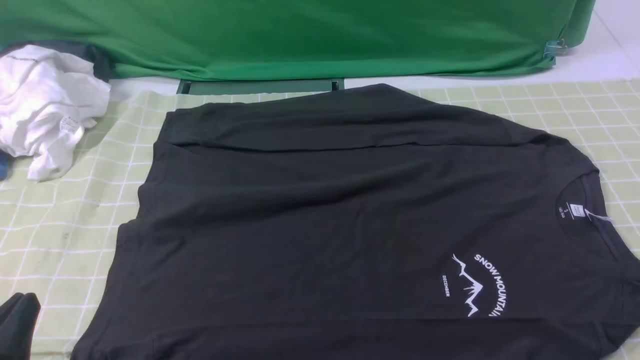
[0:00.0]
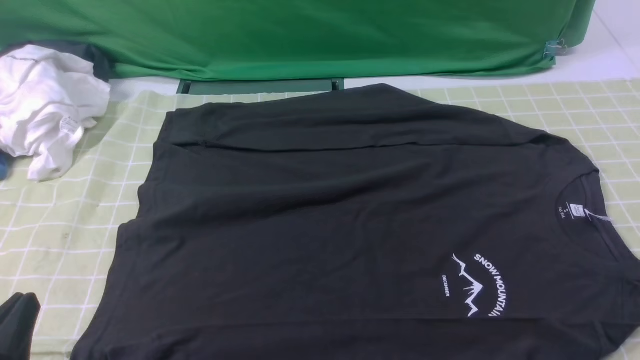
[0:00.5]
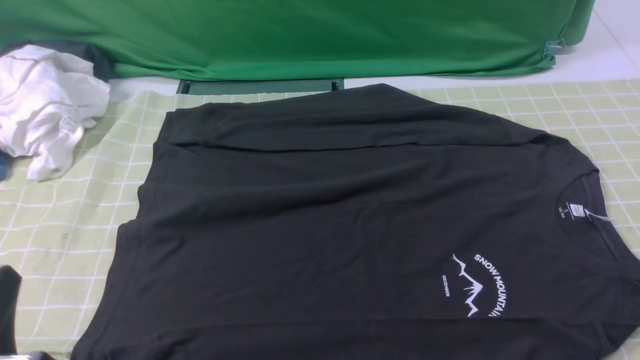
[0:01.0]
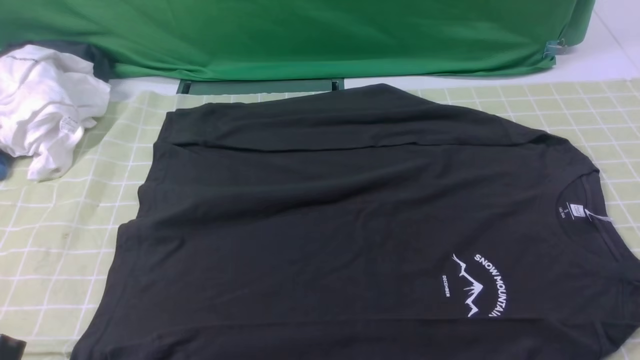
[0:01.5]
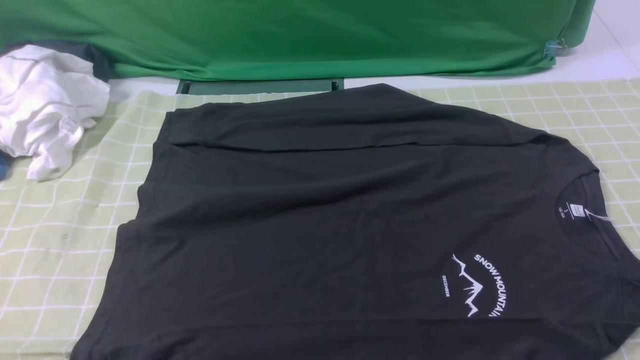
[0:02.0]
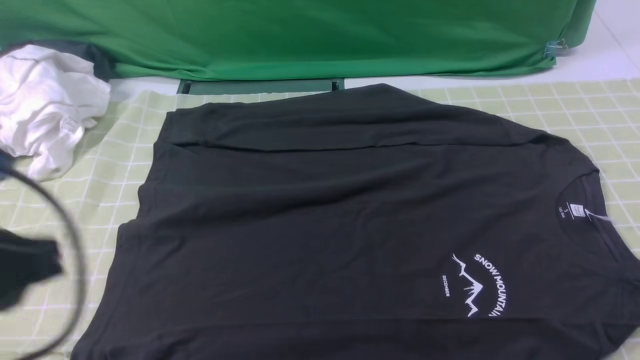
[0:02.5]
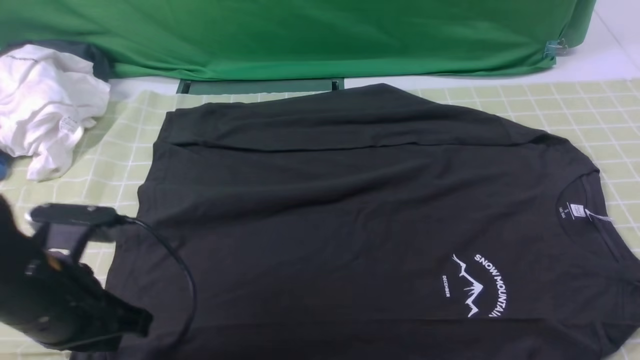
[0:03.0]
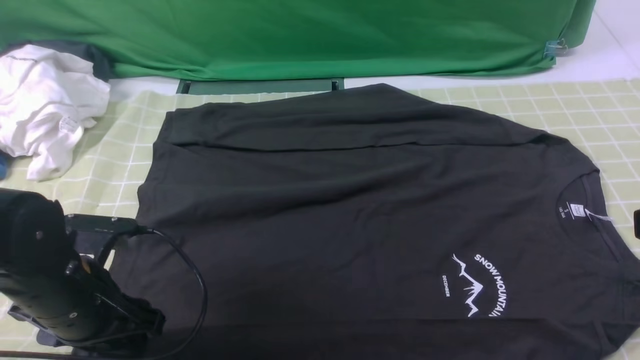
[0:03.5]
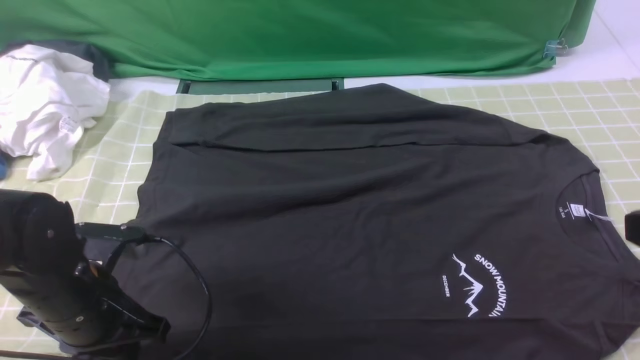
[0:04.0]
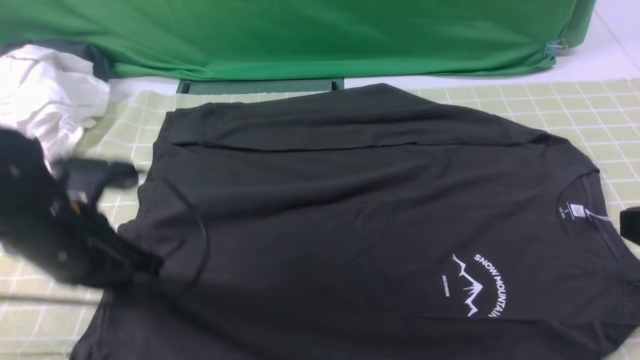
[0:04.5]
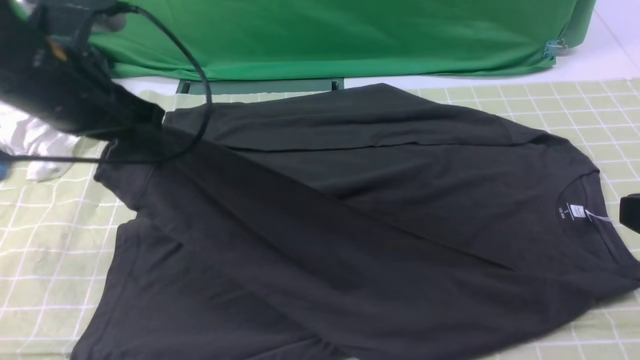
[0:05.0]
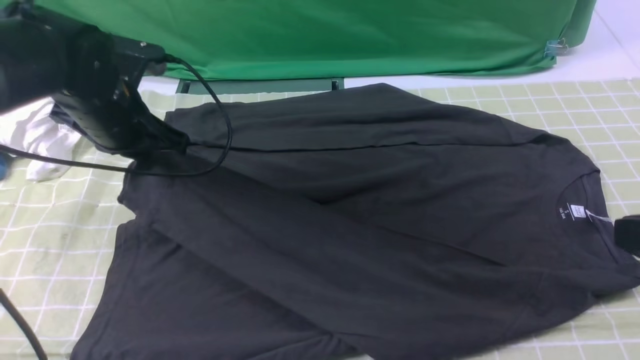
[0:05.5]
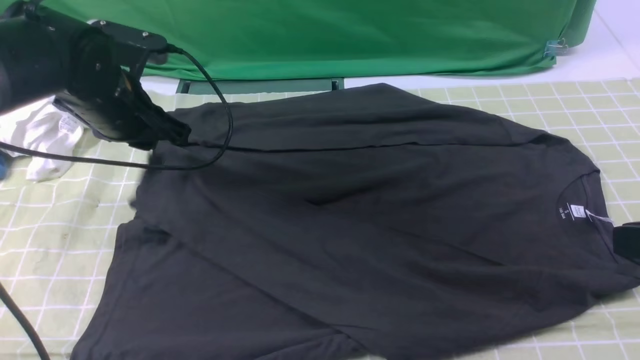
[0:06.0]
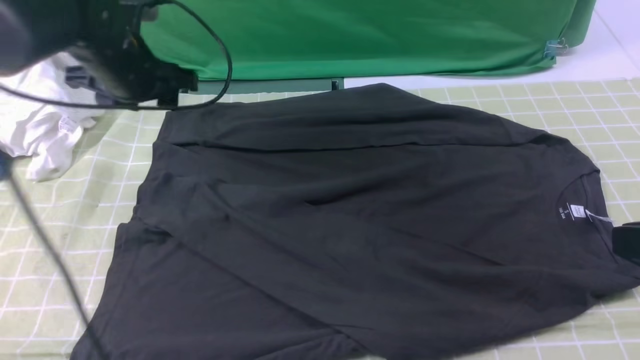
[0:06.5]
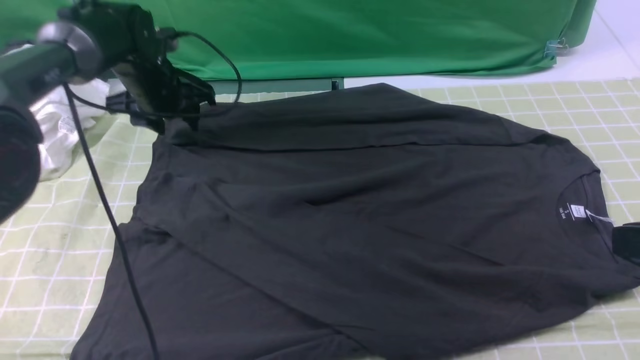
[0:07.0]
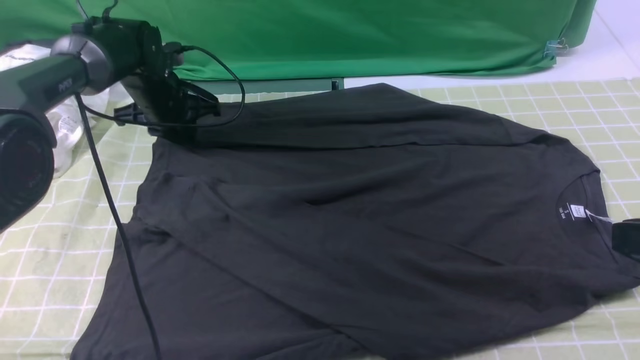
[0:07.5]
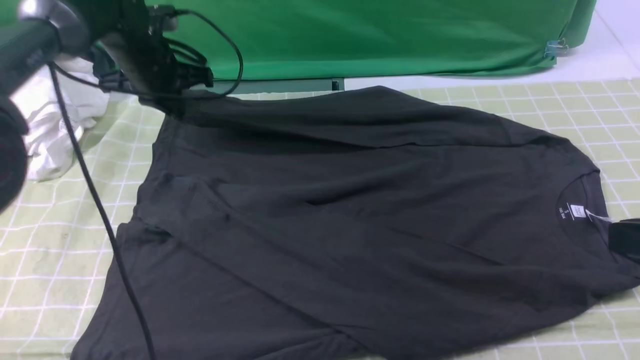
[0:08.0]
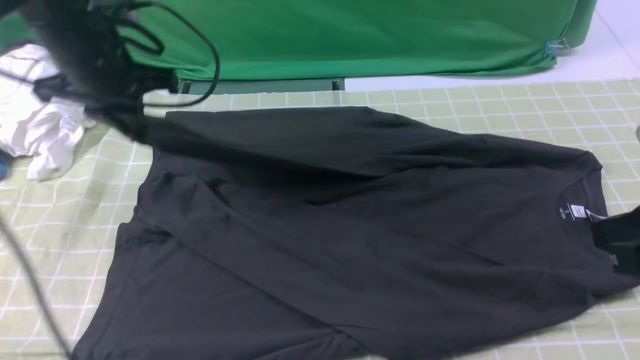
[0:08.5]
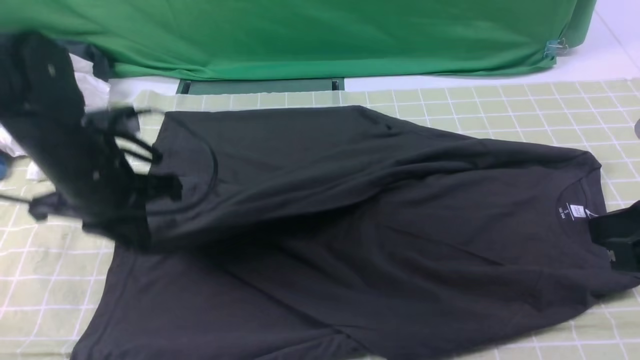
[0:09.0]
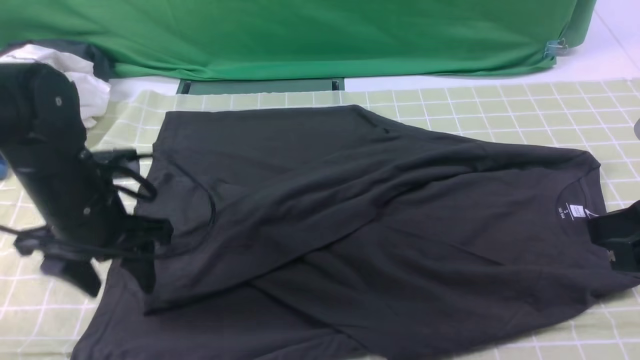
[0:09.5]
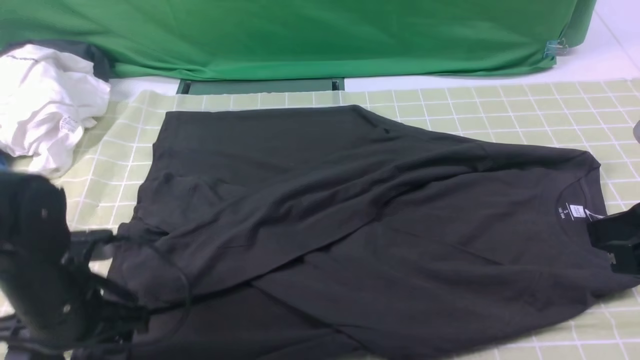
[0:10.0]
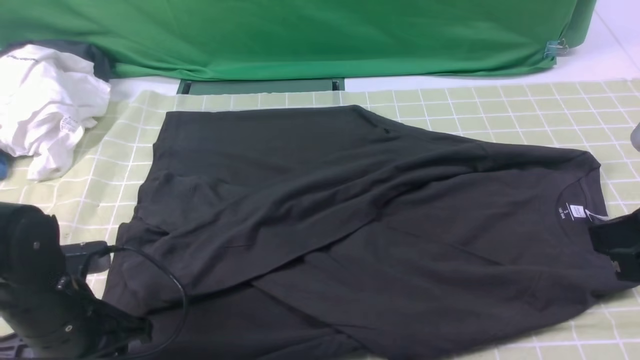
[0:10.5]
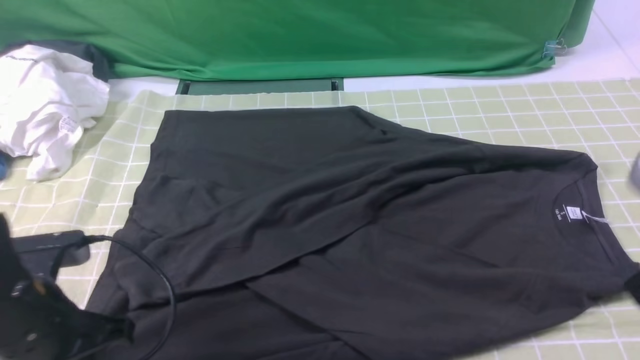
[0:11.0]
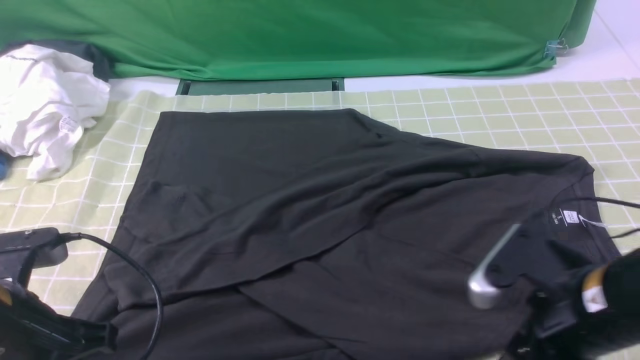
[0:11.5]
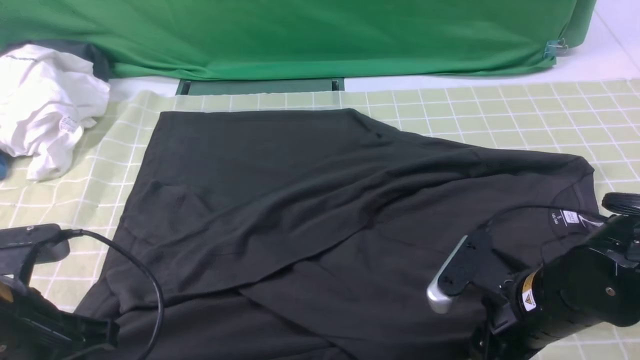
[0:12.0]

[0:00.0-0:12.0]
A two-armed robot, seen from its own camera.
Step, 0:00.0 to 0:04.0: use the left arm to clamp the cuff closest to it.
Step, 0:04.5 to 0:06.0: use the left arm to drag and place the cuff at the centered position on the left edge of the fabric.
Step, 0:06.5 to 0:07.5: use the left arm to clamp the cuff farthest from it.
Step, 0:08.0 to 0:09.0: use the left arm to drag and drop the cuff onto the cuff closest to the left arm.
0:00.0 to 0:02.0: The left gripper is displaced upward by roughly 10 cm.
0:02.0 to 0:04.0: The left gripper travels forward and downward by roughly 20 cm, and opens, then closes again.
0:04.0 to 0:06.0: The left gripper goes approximately 20 cm forward and upward.
0:06.0 to 0:08.0: The left gripper heads forward, covering approximately 10 cm, and closes up.
0:08.0 to 0:10.0: The left gripper moves backward, approximately 25 cm, and opens up.
0:10.0 to 0:12.0: The left gripper is displaced upward and backward by approximately 10 cm, and closes its fingers. Meanwhile the right gripper goes roughly 20 cm downward and to the left, and opens up.

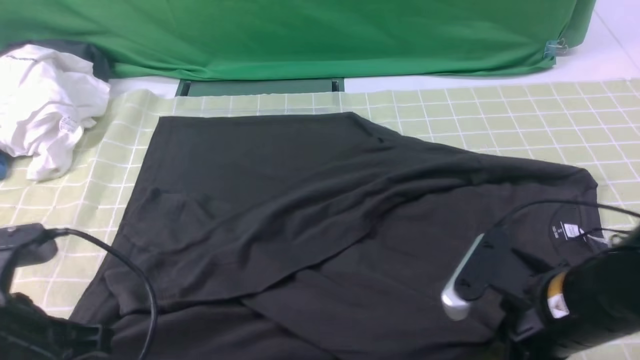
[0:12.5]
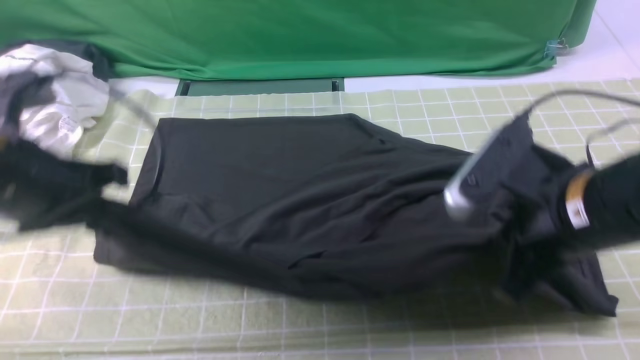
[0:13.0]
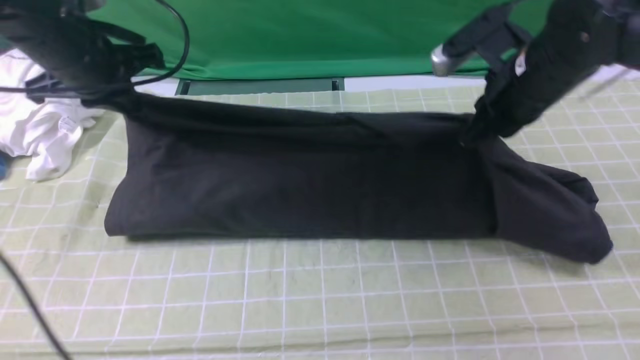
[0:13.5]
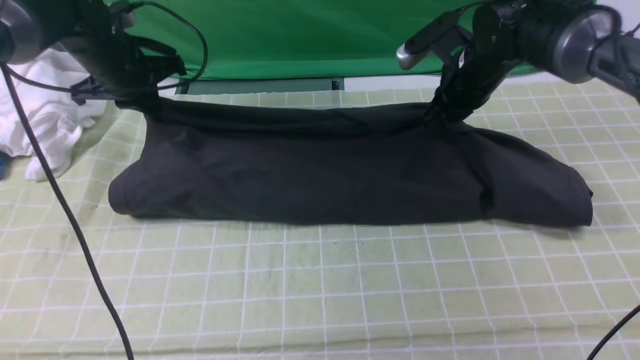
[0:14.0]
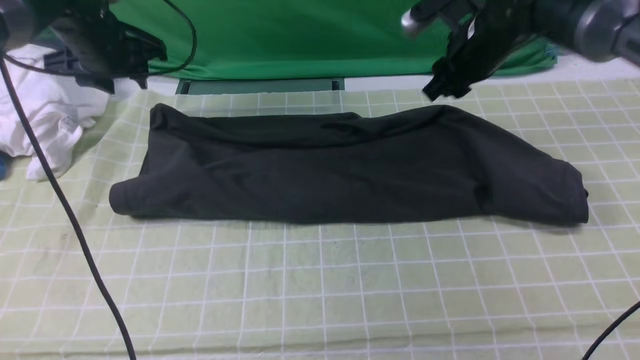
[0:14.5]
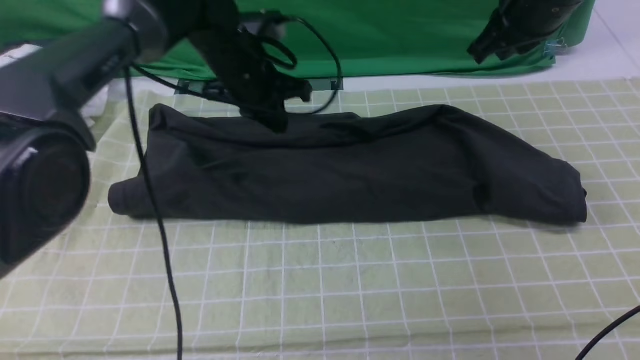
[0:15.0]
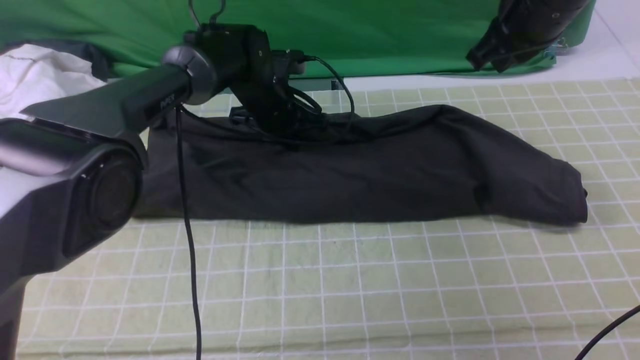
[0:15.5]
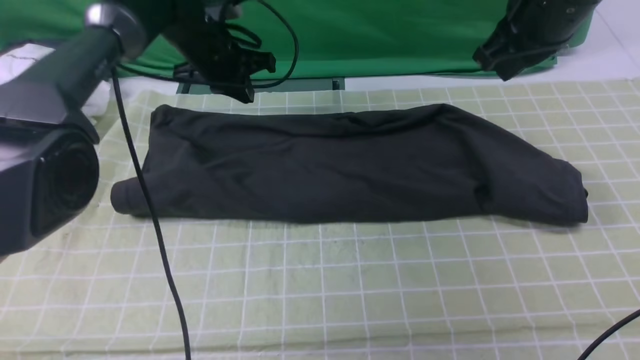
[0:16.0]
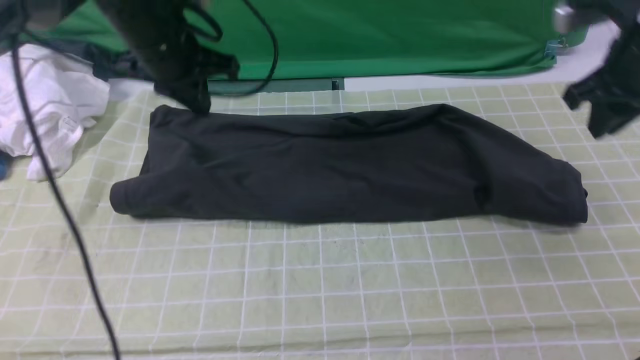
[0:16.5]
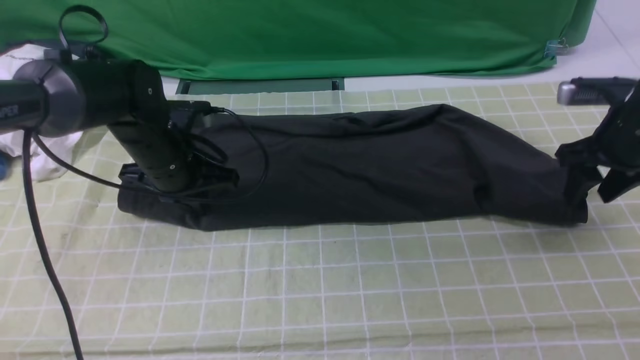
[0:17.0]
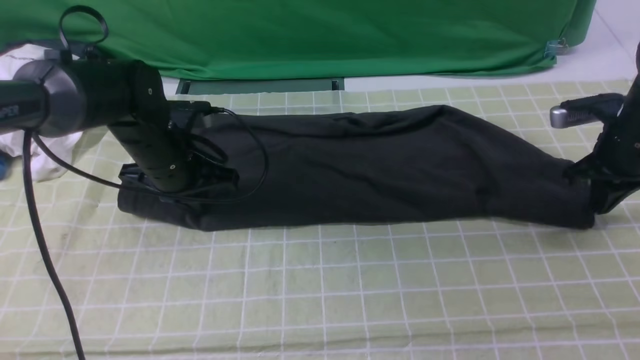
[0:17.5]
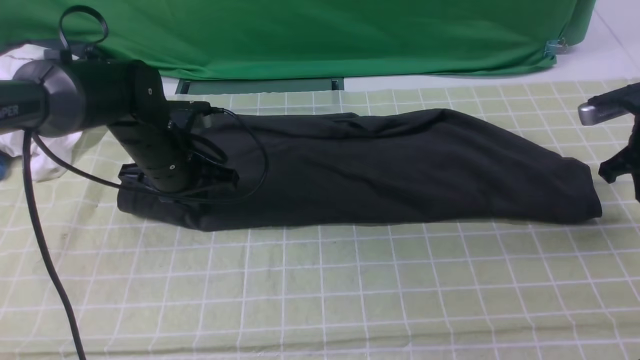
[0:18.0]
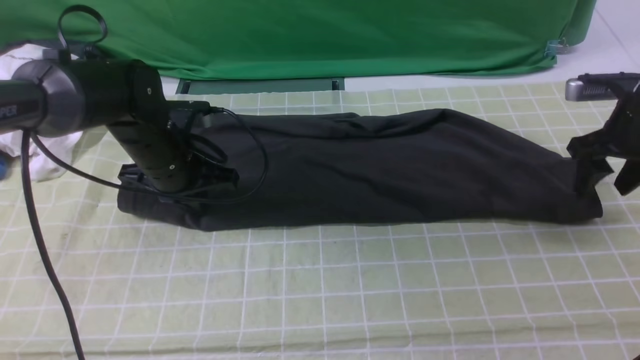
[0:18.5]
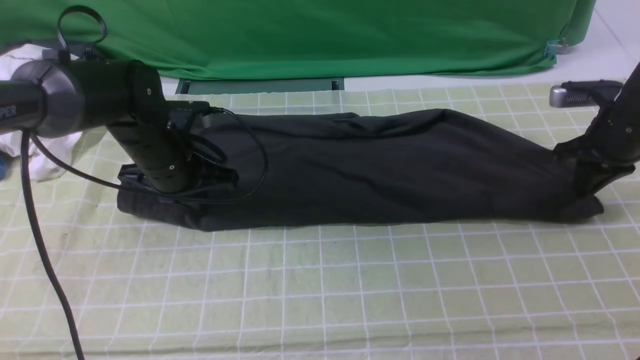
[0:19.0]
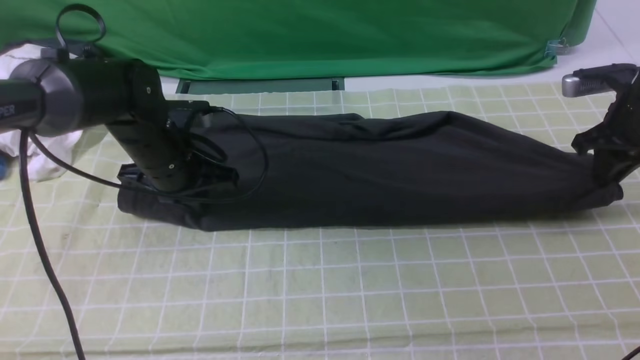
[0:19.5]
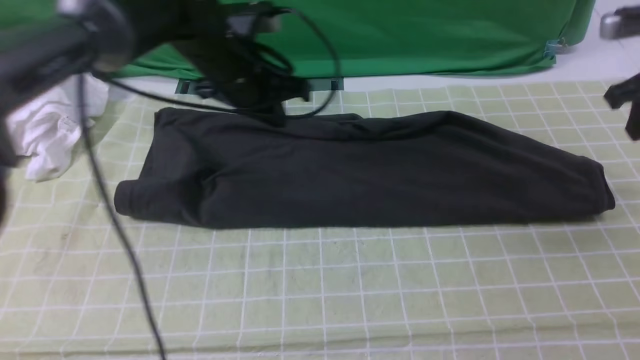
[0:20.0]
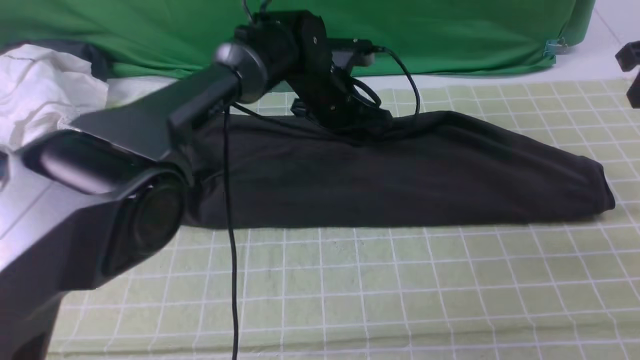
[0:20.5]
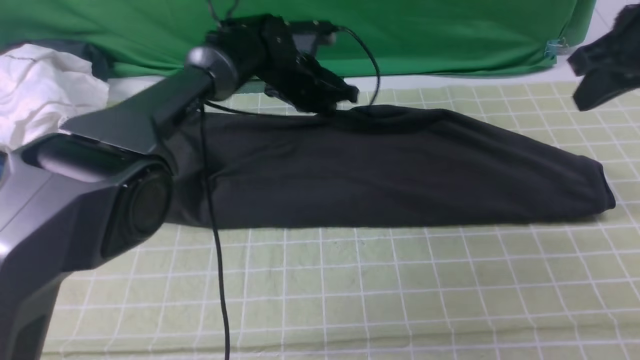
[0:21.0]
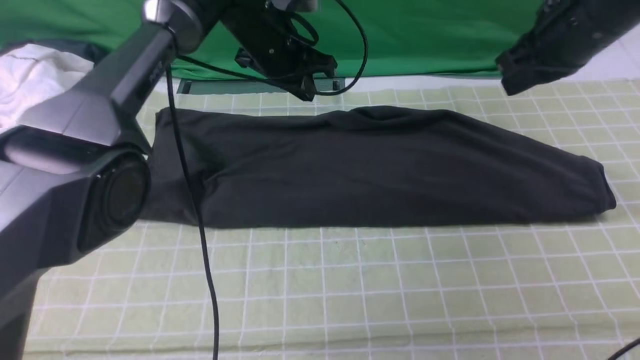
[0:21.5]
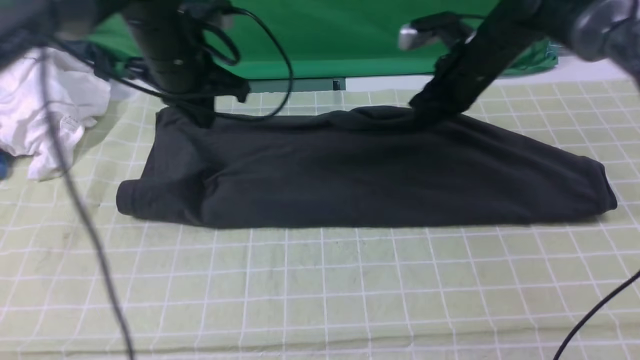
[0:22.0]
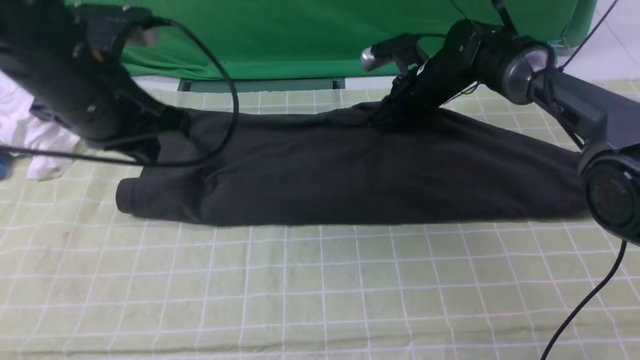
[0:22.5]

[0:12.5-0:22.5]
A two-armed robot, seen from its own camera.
Step, 0:12.5 to 0:14.0: use both arms to drag the lower edge of the fabric forward and fold it over the upper edge.
0:12.5 to 0:14.5: Both grippers move forward, about 30 cm. The left gripper opens its fingers. Meanwhile the right gripper opens up.
0:14.5 to 0:16.5: Both grippers travel together to the right and backward, some 10 cm. The right gripper closes and opens again. The left gripper closes.
0:16.5 to 0:18.5: The left gripper goes about 10 cm downward. Meanwhile the right gripper heads downward and to the right, covering about 10 cm, and opens its fingers.
0:18.5 to 0:20.5: The right gripper moves upward, approximately 15 cm, and closes its fingers; the left gripper travels to the right and forward by approximately 20 cm.
0:20.5 to 0:22.5: The left gripper is displaced to the left, backward and upward by about 30 cm; the right gripper goes roughly 30 cm to the left, downward and forward.
